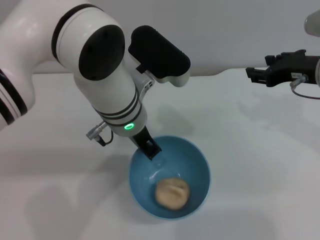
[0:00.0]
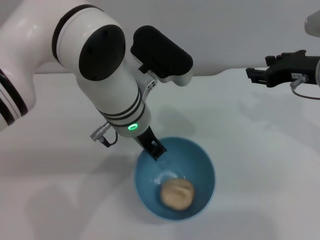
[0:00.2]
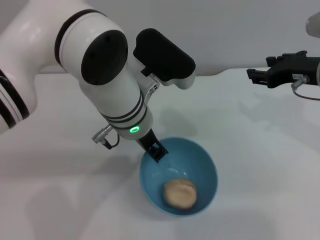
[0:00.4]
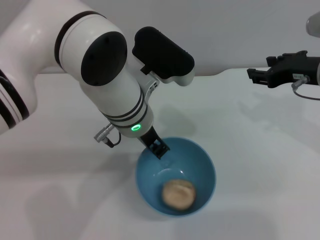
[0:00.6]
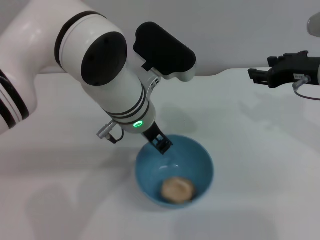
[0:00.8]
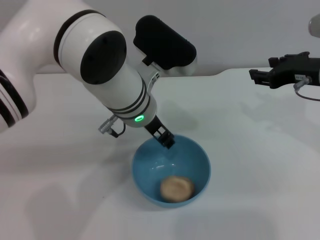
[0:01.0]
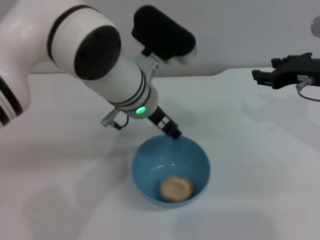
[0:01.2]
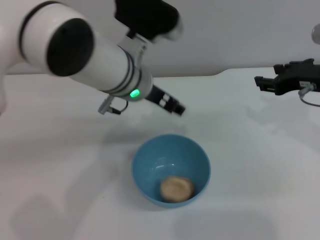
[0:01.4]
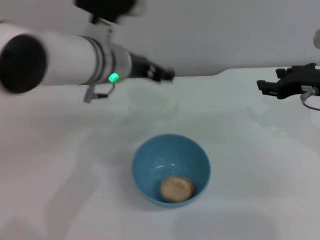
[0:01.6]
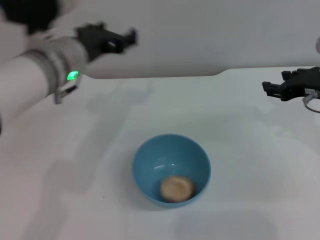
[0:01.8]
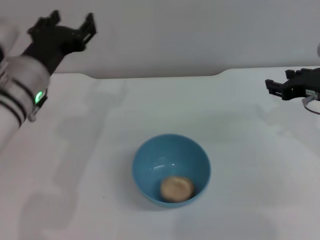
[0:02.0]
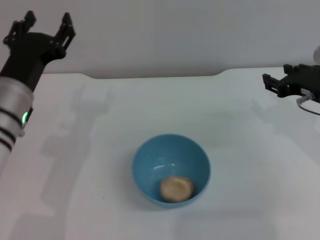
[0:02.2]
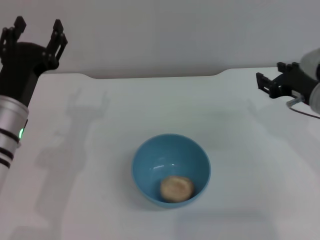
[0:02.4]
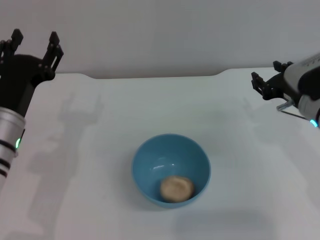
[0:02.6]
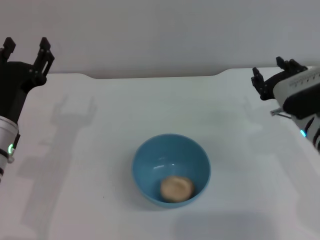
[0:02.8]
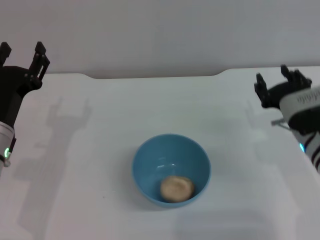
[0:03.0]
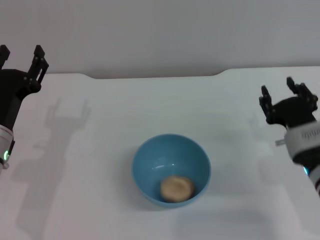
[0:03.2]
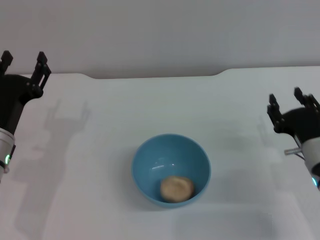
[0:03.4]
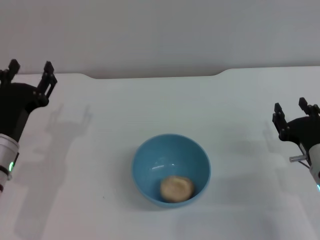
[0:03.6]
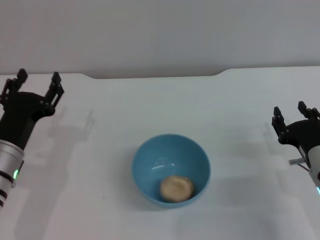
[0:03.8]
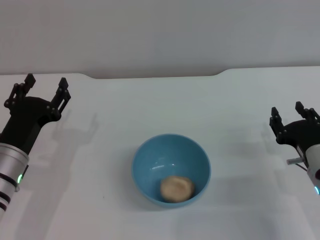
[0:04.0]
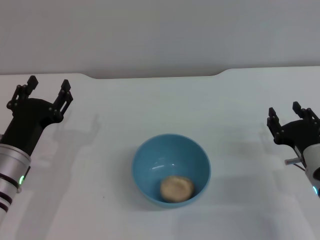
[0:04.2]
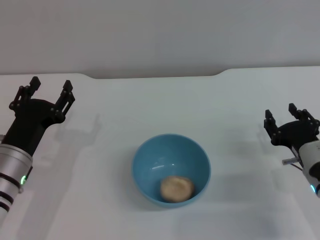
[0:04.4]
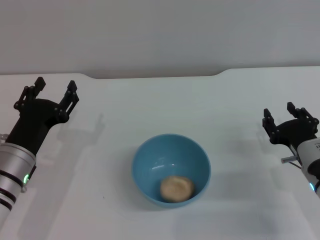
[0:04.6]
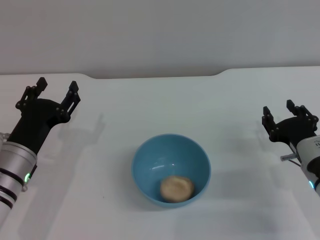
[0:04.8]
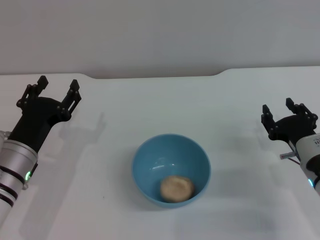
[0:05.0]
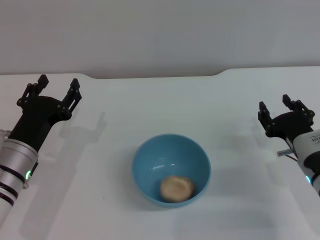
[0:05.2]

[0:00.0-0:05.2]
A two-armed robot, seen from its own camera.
Task of the whole recording: put the egg yolk pastry into the blue bowl and pour it out repeatedly.
Step, 0:00.0 to 0:01.2: Place the bowl on the table.
0:00.0 to 0:01.8: The left gripper travels to the left by about 10 cm, and opens up.
0:01.8 to 0:03.4: The right gripper heads downward and backward, covering some 15 cm; the left gripper is displaced downward, to the left and backward by approximately 15 cm.
0:03.4 to 0:05.2: The grippers make only small movements.
